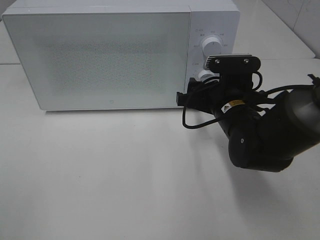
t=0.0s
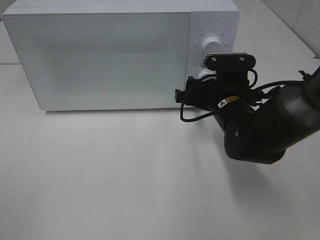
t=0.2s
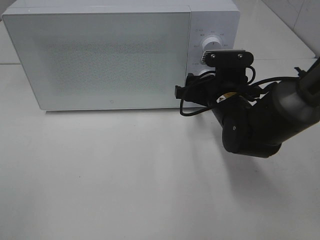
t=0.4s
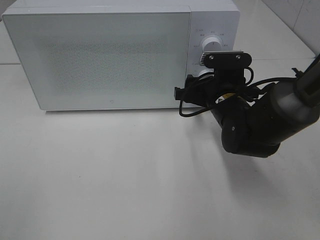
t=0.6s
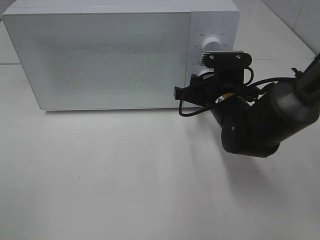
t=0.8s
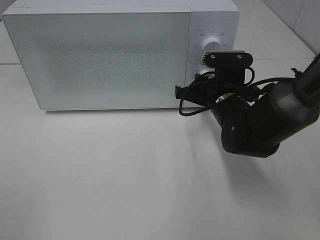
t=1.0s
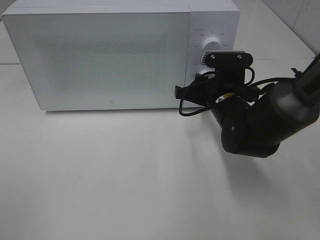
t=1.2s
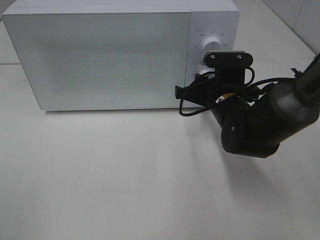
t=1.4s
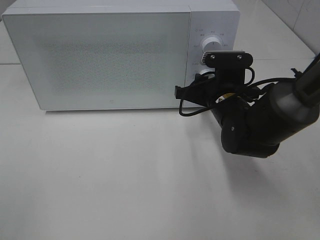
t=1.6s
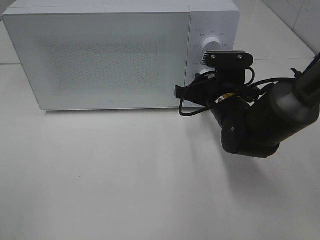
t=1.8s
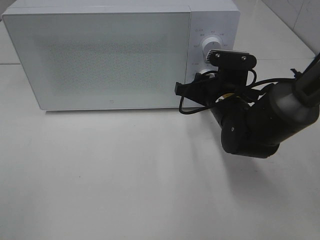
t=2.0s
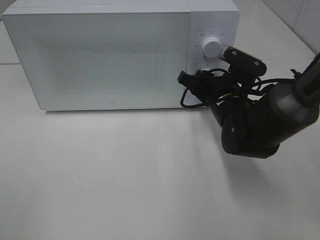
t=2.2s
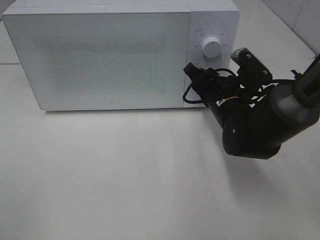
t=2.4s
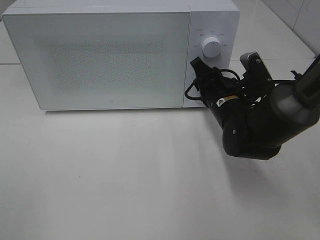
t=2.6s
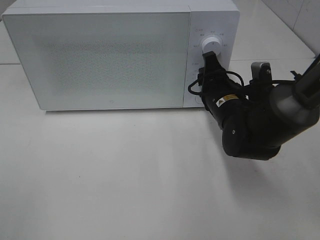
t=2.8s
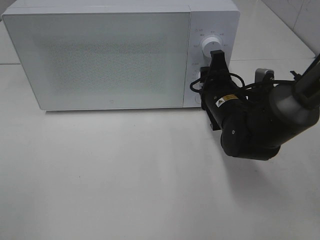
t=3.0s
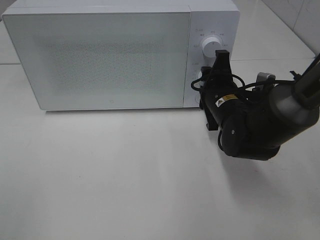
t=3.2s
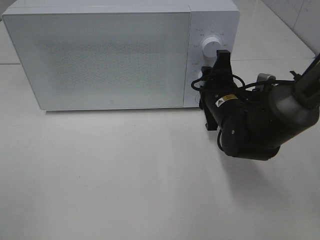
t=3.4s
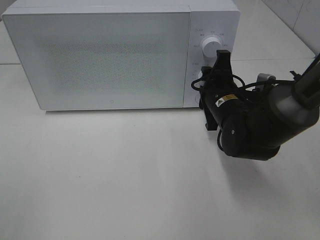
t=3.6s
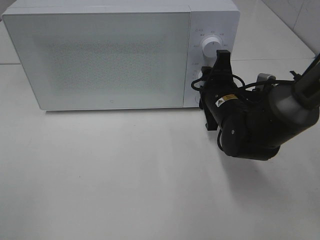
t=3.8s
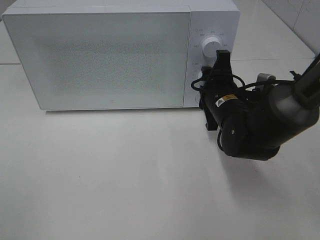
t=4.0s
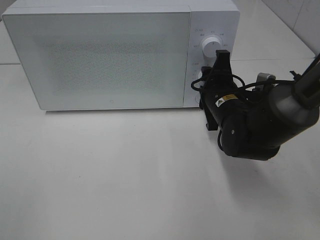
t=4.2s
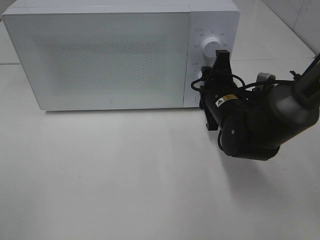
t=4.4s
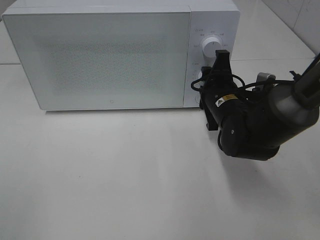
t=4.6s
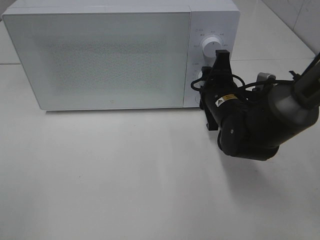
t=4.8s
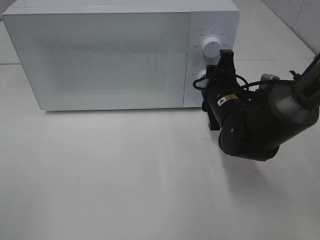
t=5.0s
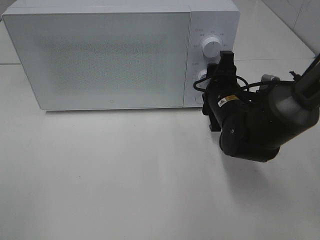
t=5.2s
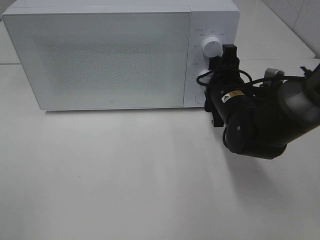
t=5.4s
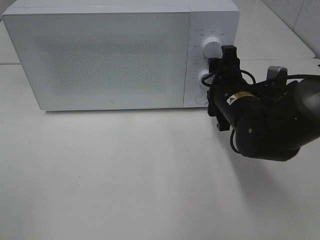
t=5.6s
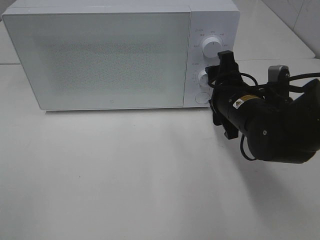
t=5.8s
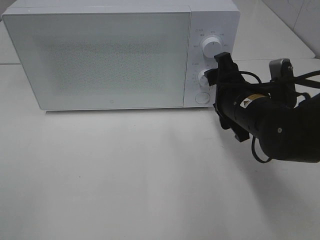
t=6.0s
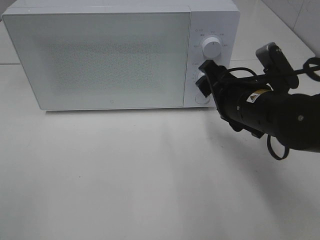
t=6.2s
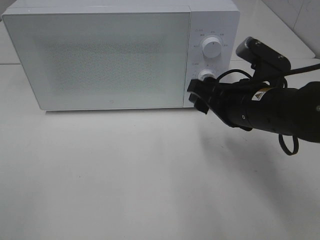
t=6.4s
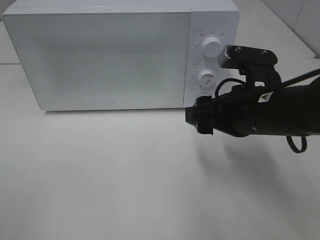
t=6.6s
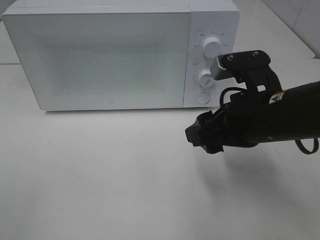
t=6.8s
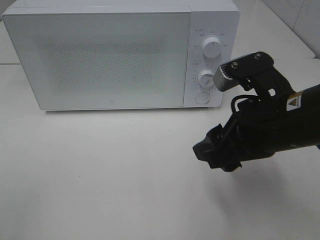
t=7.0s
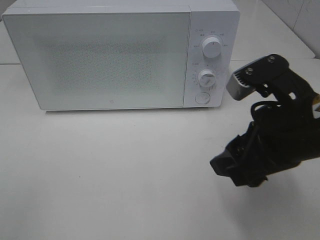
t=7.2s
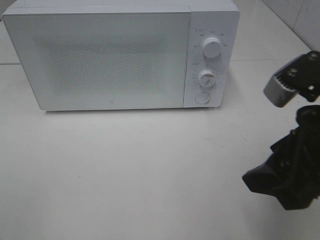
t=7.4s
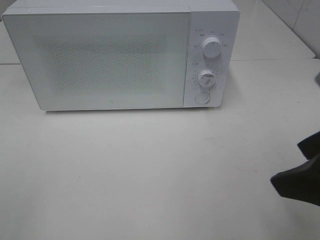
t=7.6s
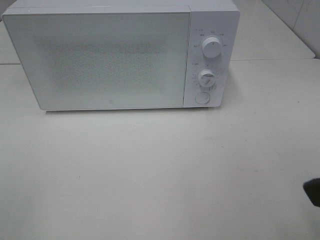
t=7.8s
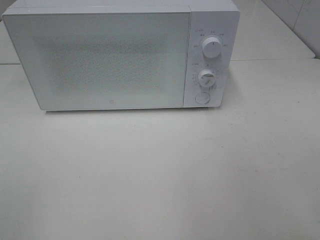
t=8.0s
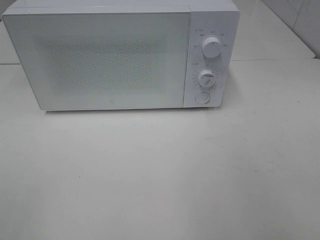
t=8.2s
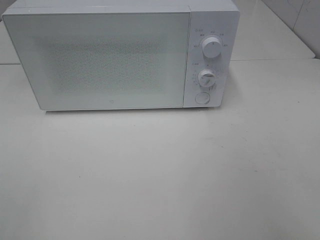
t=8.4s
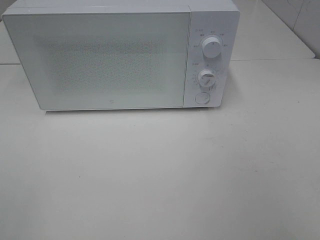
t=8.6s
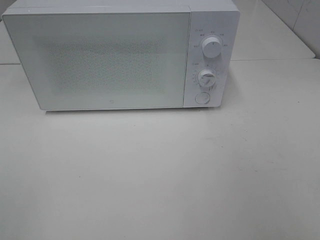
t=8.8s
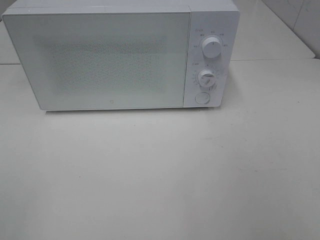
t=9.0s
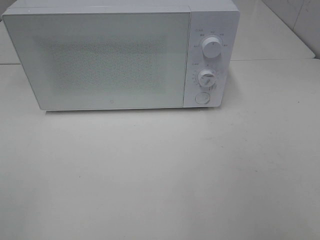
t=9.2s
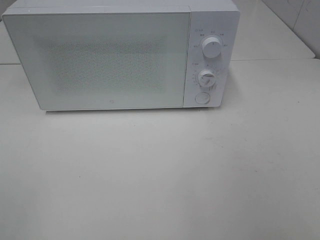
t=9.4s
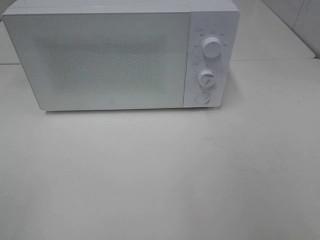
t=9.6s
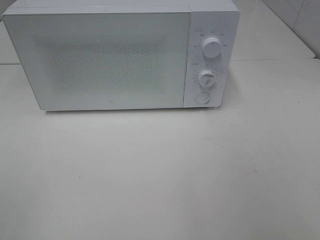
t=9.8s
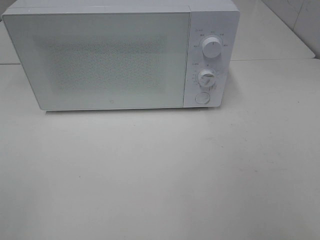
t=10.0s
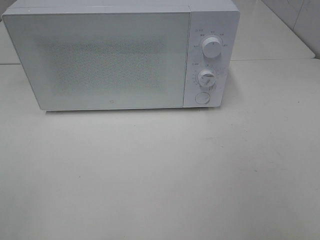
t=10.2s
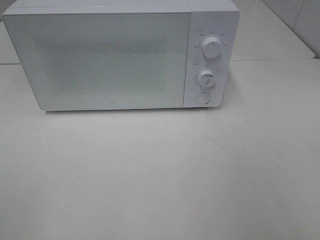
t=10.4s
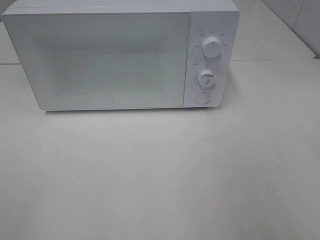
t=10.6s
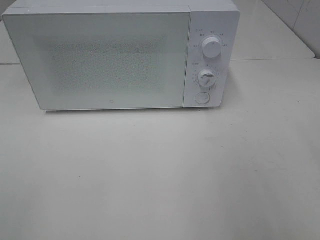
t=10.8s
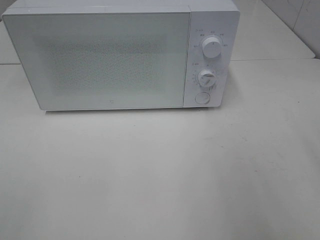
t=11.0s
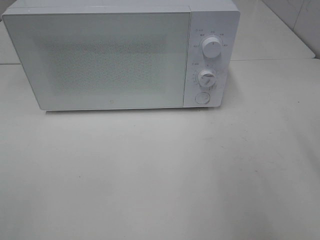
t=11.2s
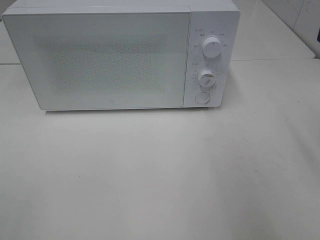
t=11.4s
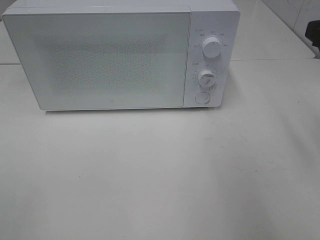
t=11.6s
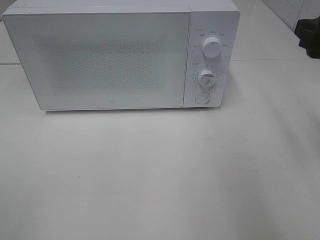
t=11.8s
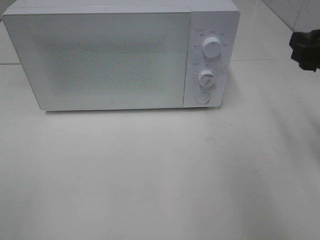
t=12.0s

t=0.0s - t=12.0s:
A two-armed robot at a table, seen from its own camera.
Task of the whole recording: Heat Sandwich.
Step, t=0.0s - t=5.4s: Right hand: twist timer button.
t=0.0s - t=1.6s: The right gripper closes up.
t=3.0s - t=4.4s: The grippers stay close to where they were, moving slightly.
t=4.4s - t=6.0s: The right gripper shifts by roughly 5 cm.
t=6.0s - t=7.6s: The right gripper goes approximately 20 cm backward and upward.
t=7.6s - t=9.0s: The right gripper heads backward and to the right, covering roughly 15 cm.
t=10.4s - t=12.0s: The right gripper heads forward, covering roughly 20 cm.

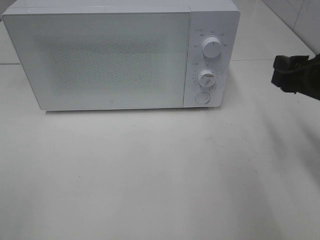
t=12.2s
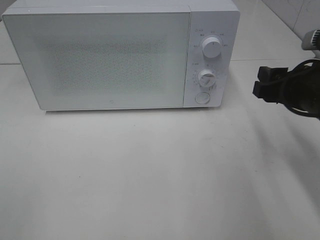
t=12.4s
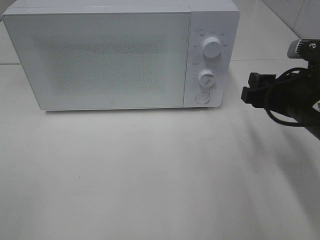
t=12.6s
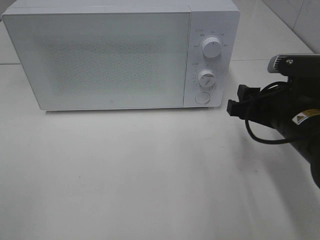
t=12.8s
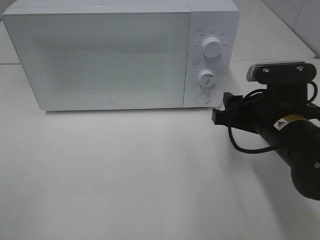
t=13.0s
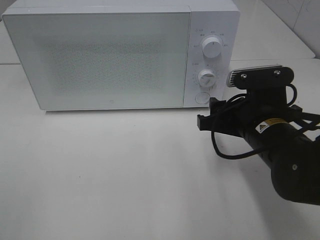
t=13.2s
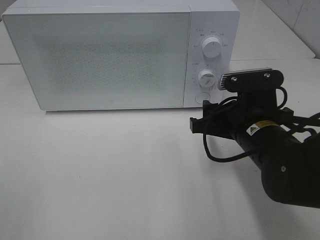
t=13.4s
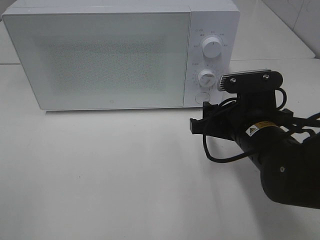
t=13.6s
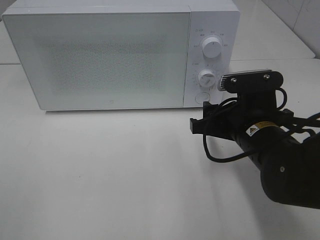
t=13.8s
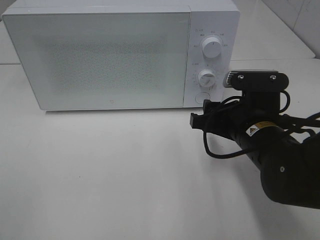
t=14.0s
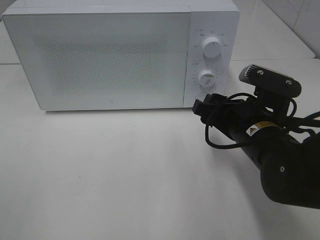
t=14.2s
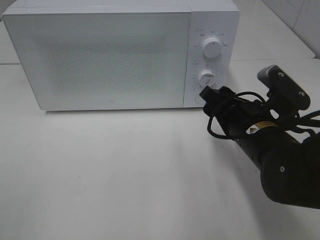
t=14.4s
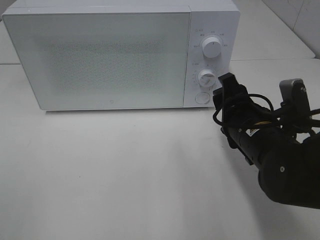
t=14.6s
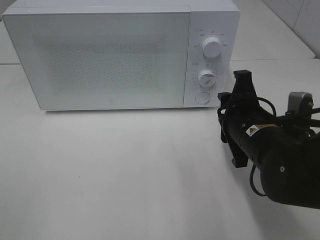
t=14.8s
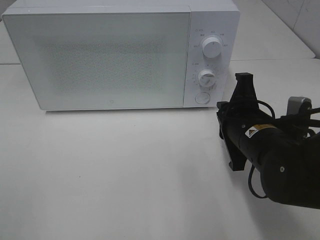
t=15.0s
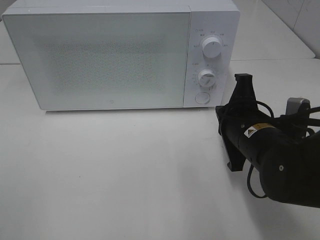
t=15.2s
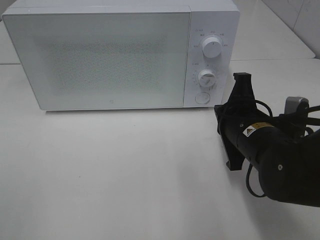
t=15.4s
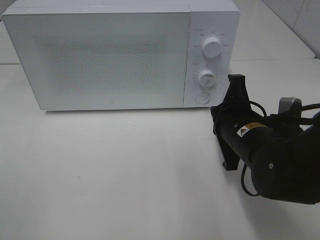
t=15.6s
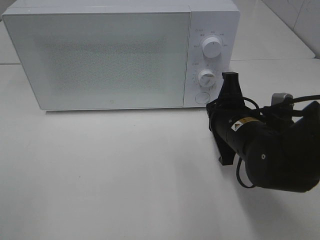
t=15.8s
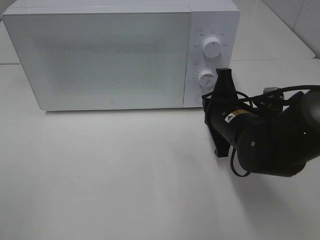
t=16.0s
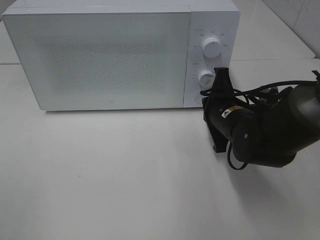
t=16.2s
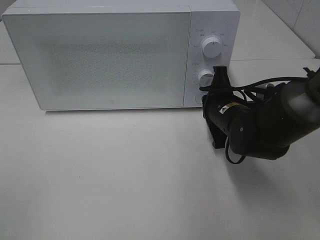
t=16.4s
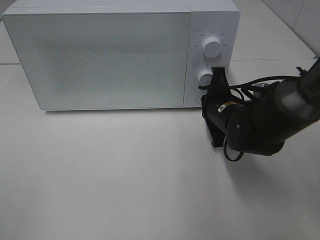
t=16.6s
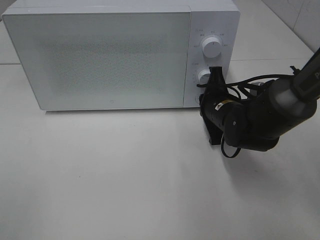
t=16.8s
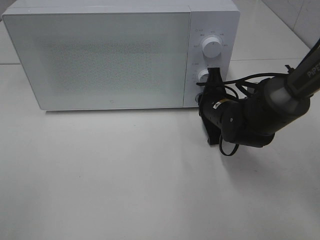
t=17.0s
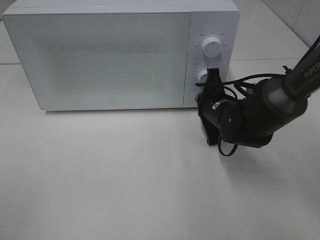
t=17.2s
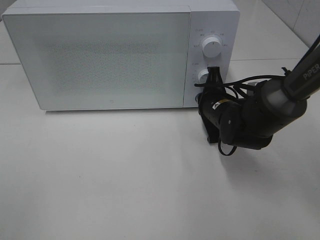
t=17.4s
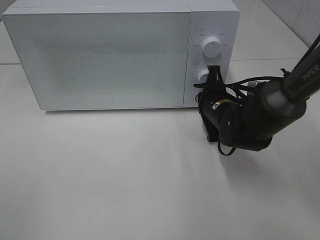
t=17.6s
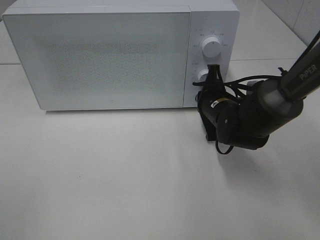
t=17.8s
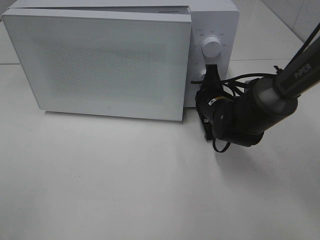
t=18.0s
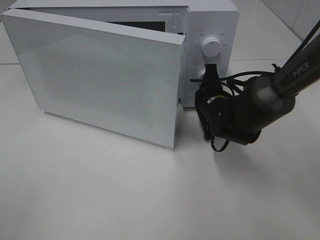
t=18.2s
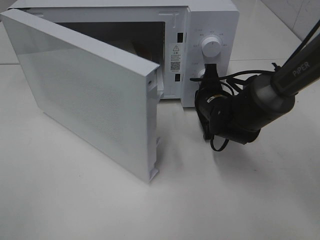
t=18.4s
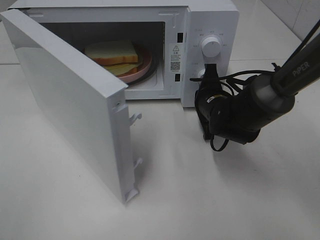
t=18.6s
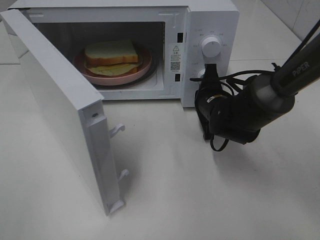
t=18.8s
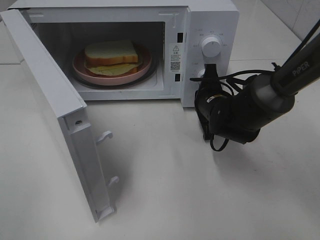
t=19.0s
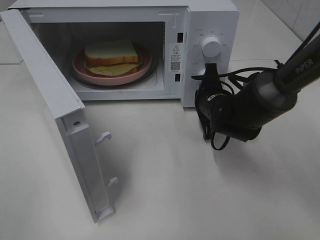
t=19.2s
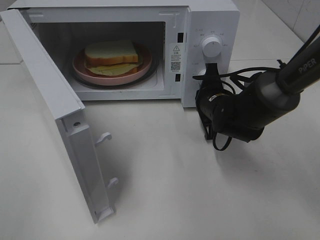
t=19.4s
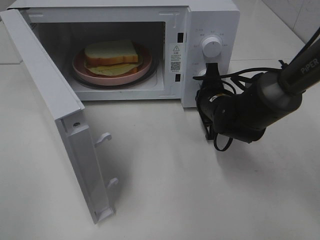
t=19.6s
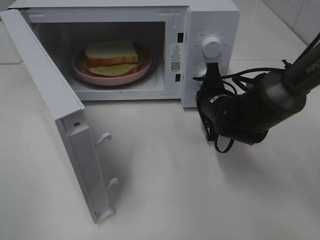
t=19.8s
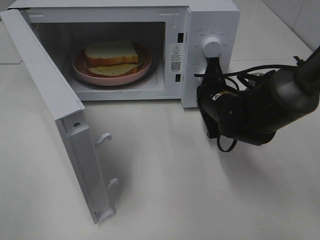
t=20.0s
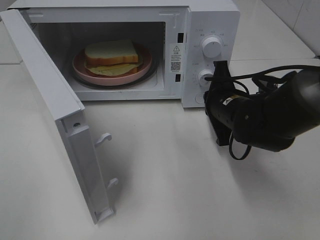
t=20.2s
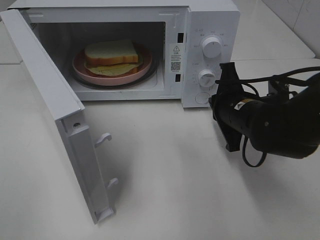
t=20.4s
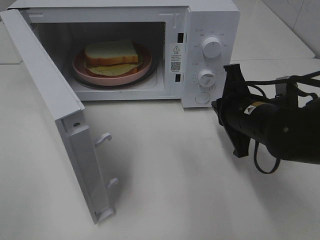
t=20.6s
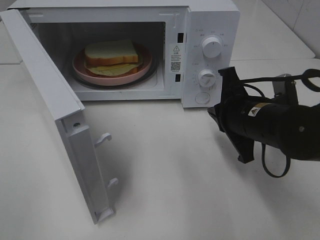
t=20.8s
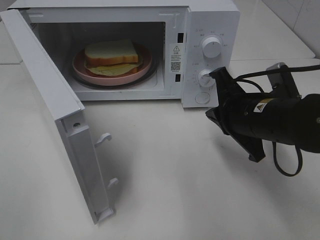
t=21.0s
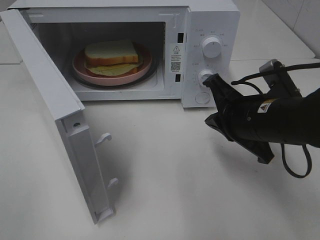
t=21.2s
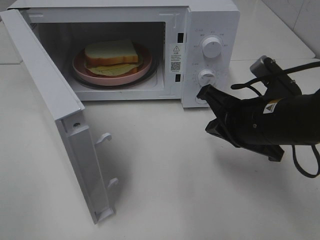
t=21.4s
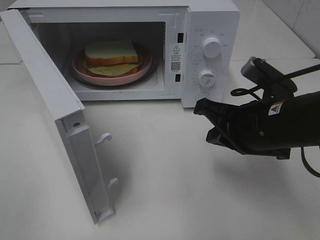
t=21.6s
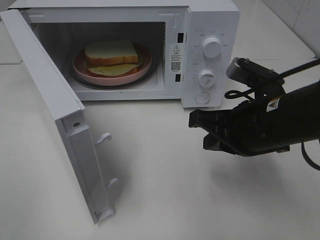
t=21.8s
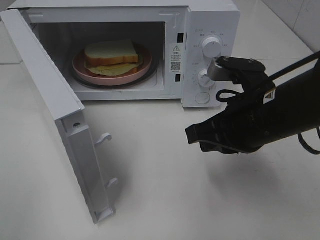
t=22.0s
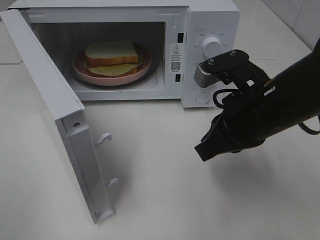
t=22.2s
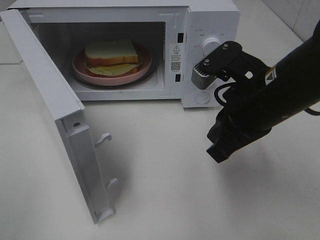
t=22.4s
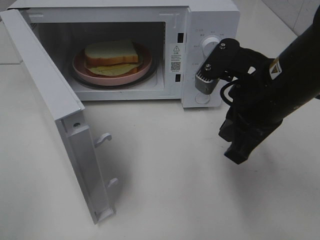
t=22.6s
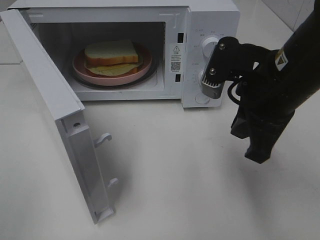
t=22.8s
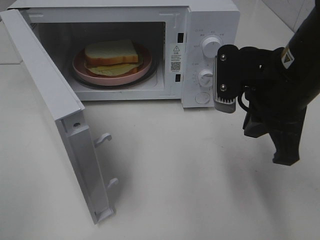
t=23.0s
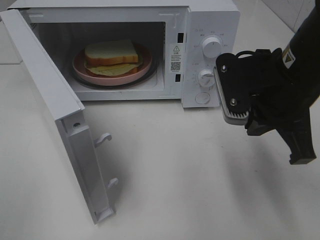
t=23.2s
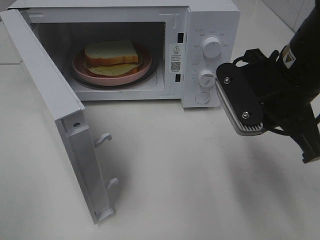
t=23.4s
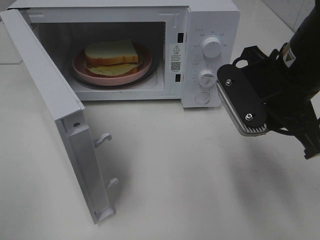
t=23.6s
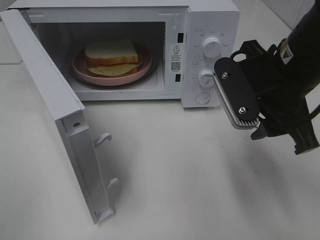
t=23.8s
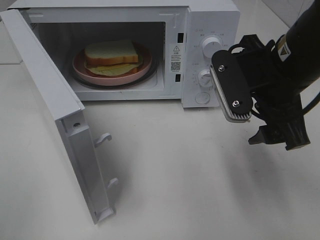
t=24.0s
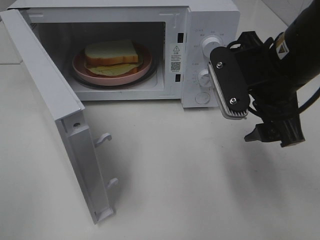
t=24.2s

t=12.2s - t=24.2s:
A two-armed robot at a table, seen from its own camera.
Task of the whole recording: Heat Sandwich.
Step, t=12.2s - t=20.2s: Right hand: press the switch.
t=12.2s - t=13.8s: The right gripper is displaced to the left and downward by approximately 15 cm.
t=13.8s - t=15.2s: The right gripper closes its fingers.
t=15.2s - t=16.6s: The right gripper travels forward by about 10 cm.
t=19.8s - t=21.2s: The right gripper heads backward and upward, covering approximately 15 cm.
t=21.2s - t=22.6s: The right gripper travels upward by roughly 5 cm.
t=22.6s - t=24.2s: The right gripper opens up.
